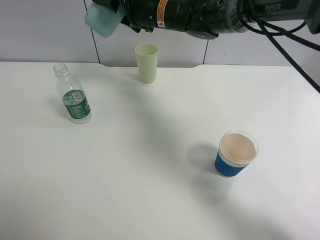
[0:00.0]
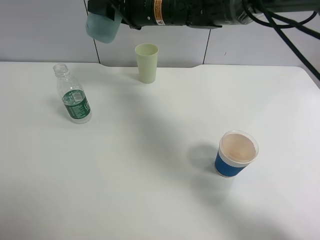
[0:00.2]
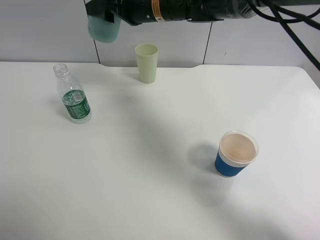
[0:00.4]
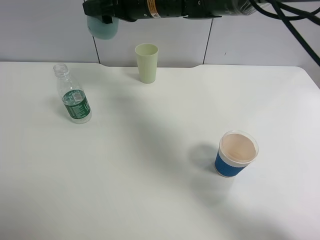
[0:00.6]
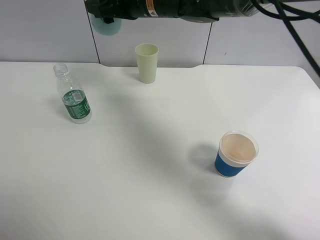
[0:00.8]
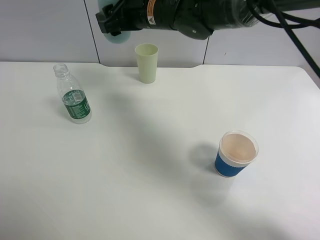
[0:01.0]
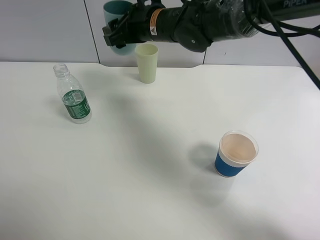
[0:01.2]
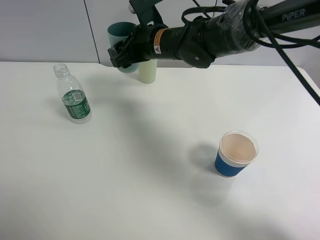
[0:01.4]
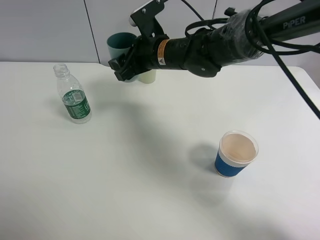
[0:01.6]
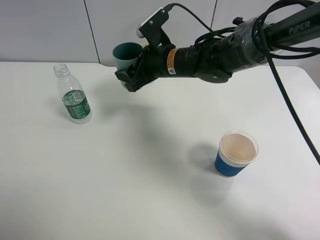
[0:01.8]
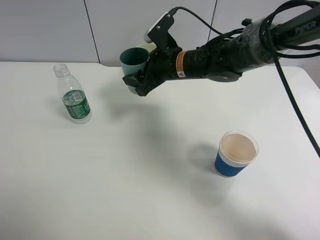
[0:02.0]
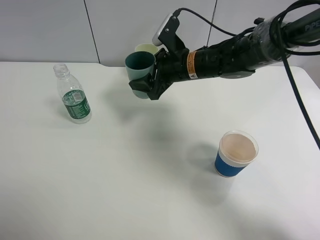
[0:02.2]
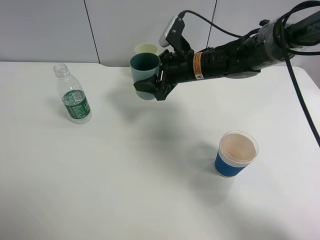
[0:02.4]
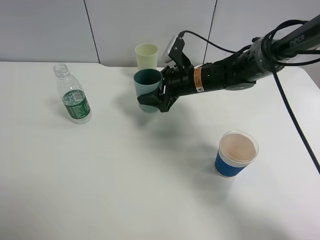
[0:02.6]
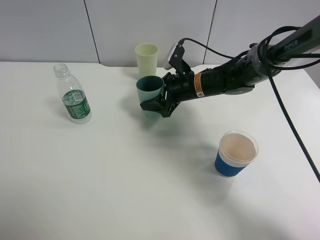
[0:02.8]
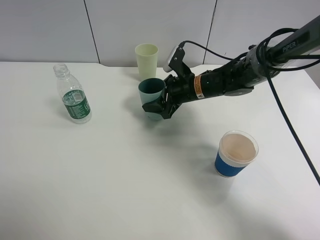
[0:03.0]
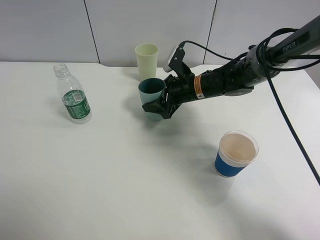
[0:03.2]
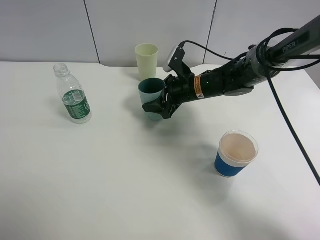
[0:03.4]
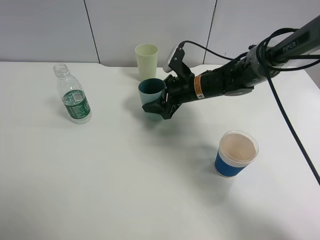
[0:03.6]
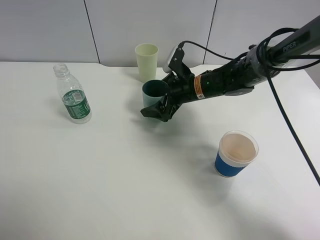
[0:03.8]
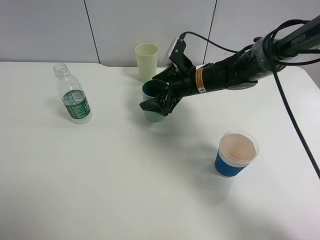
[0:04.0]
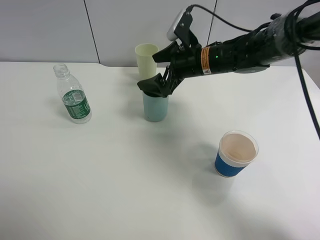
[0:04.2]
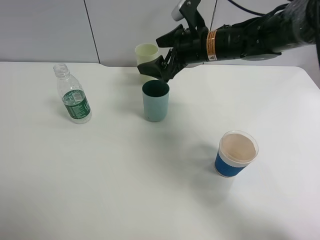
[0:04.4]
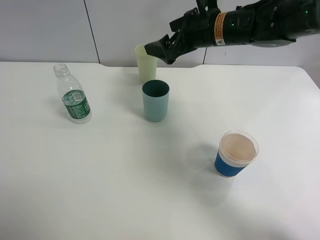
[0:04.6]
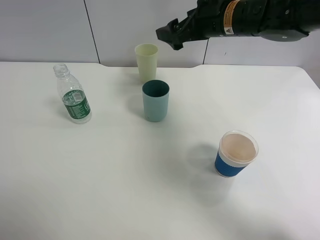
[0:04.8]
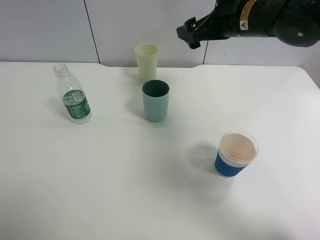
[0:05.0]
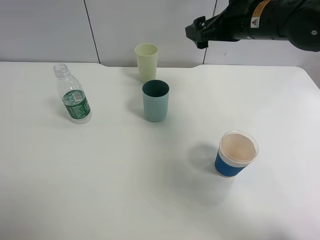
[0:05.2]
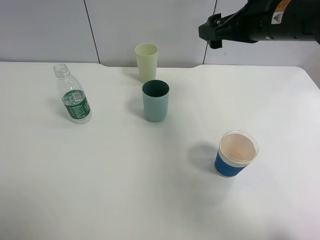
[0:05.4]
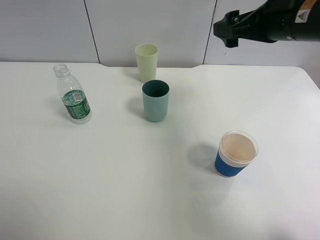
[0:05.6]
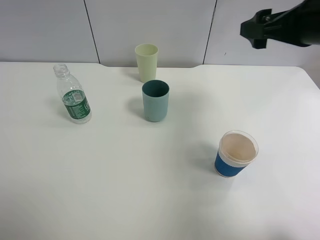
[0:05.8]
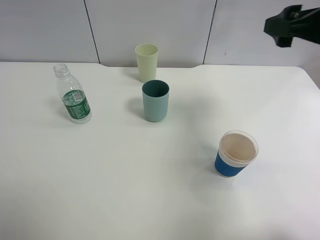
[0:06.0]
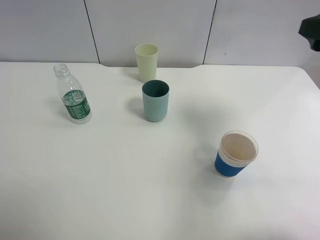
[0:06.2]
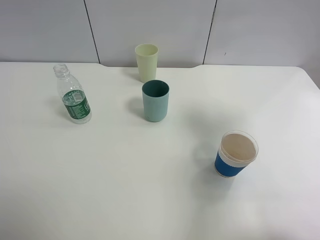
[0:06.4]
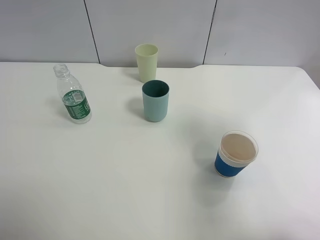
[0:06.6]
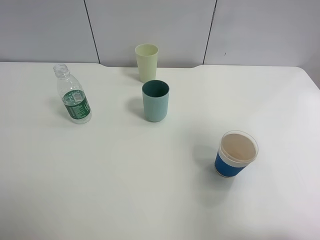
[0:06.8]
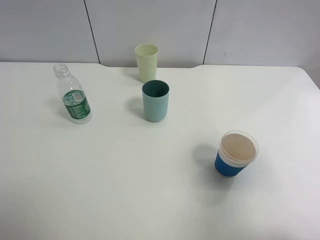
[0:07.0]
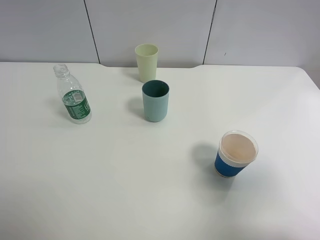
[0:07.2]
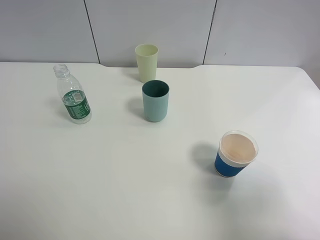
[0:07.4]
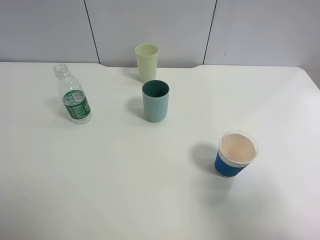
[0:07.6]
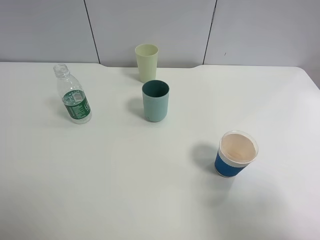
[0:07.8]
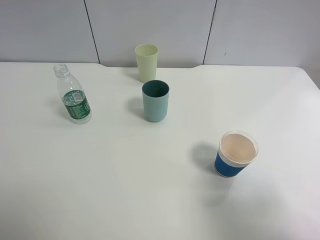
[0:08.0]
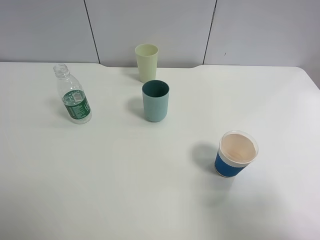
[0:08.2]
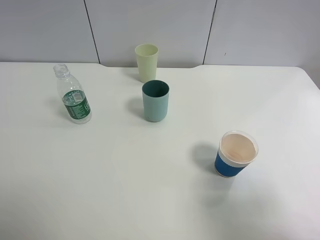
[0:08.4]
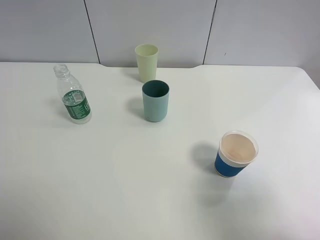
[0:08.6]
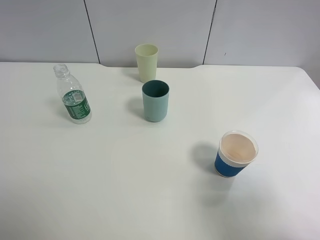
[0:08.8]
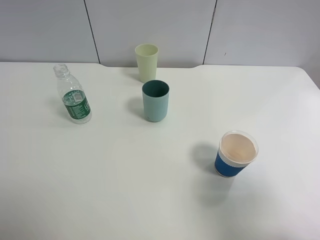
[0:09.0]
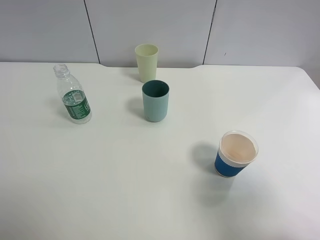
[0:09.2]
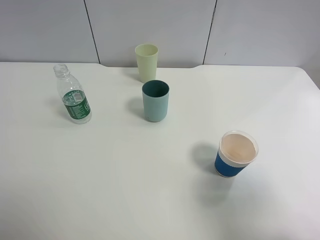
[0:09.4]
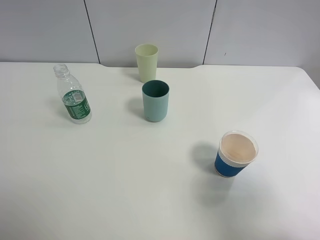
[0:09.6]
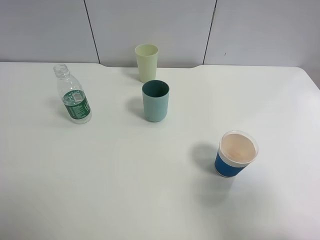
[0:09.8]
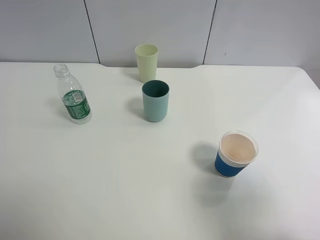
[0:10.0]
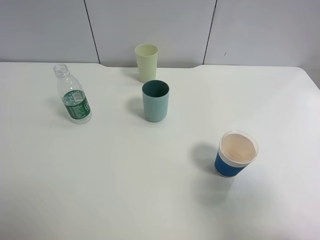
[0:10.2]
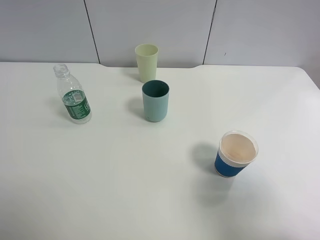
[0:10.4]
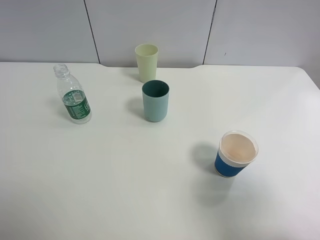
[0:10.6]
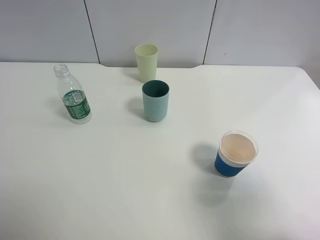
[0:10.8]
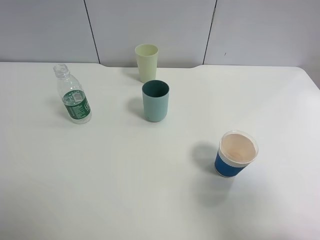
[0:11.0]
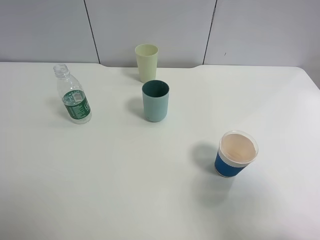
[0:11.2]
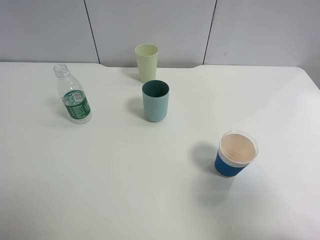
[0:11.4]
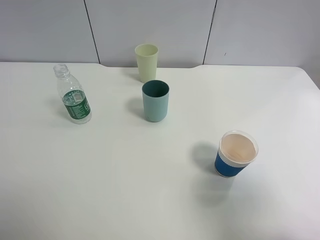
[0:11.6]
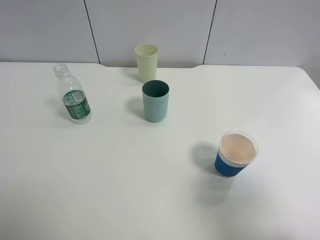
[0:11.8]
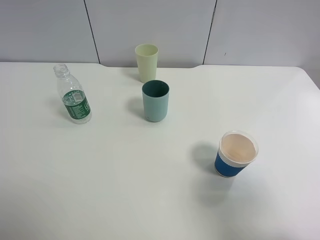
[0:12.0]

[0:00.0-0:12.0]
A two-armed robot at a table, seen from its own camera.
Task of the whole recording: use a clamp to hold the bottle of the drink, pour the beverage into a random cup, then clamp the cup containing the drink and pour the drink into another random cup.
Step, 0:00.0 to 0:03.8: Place the blue plastic cup on the table with right gripper.
0:00.0 to 0:01.6: The right gripper heads backward and downward, covering roughly 10 cm.
0:01.6 to 0:03.0: The right gripper travels downward and to the right by some 10 cm.
0:03.0 to 0:04.4: The right gripper goes roughly 10 cm upward, and opens up.
0:04.4 to 0:06.0: The right gripper is displaced to the right, backward and upward by about 25 cm.
0:06.0 to 0:07.6: The right gripper heads backward, covering approximately 25 cm.
0:09.0 to 0:12.0: Both grippers stay put.
